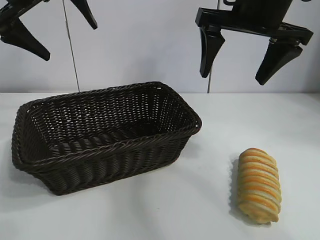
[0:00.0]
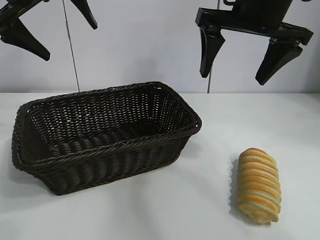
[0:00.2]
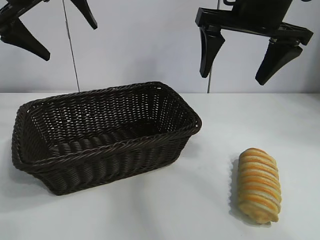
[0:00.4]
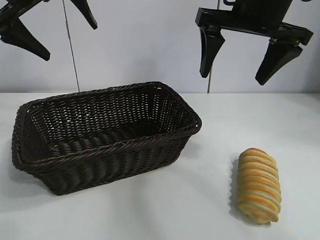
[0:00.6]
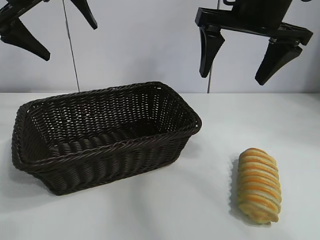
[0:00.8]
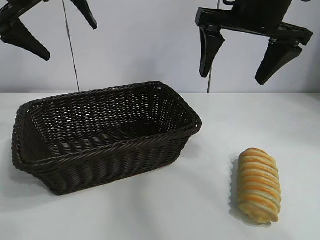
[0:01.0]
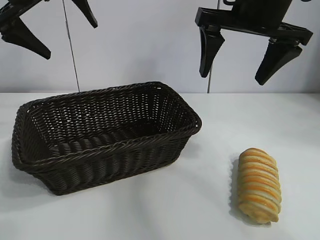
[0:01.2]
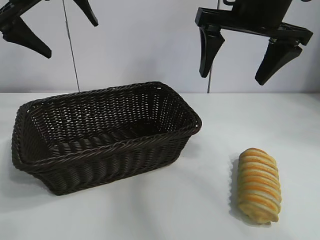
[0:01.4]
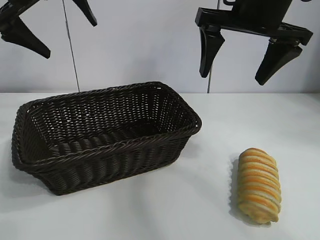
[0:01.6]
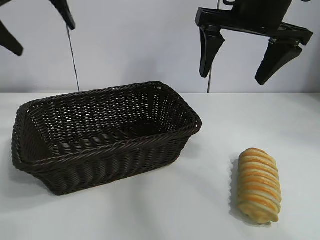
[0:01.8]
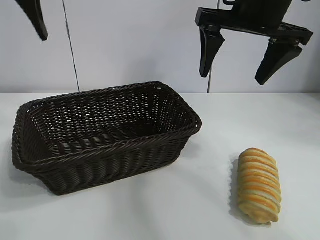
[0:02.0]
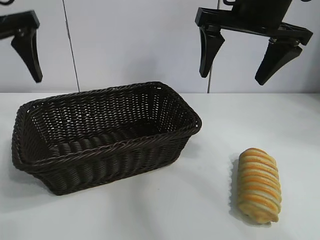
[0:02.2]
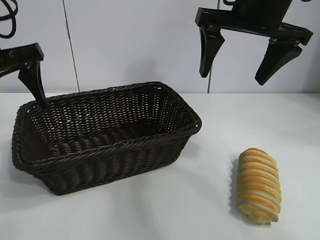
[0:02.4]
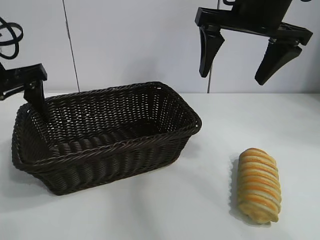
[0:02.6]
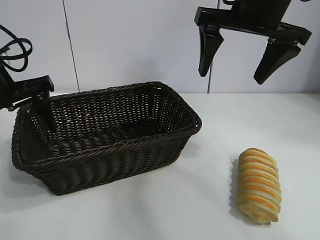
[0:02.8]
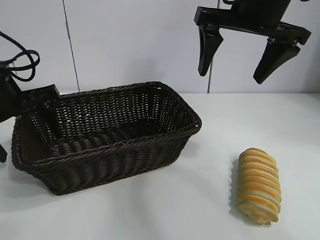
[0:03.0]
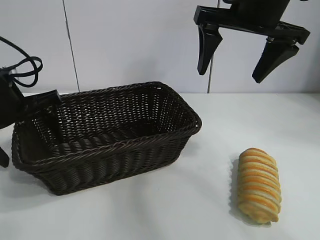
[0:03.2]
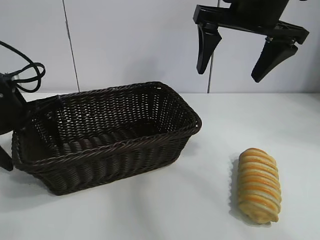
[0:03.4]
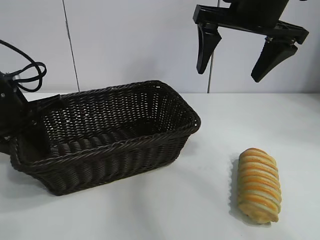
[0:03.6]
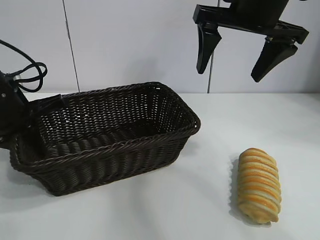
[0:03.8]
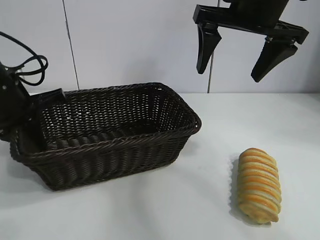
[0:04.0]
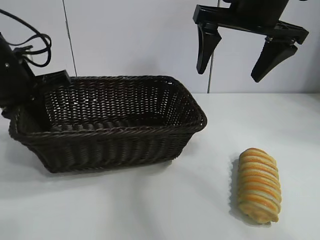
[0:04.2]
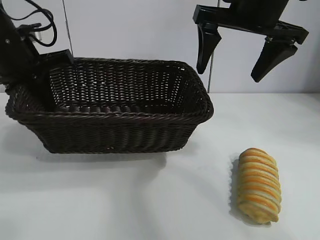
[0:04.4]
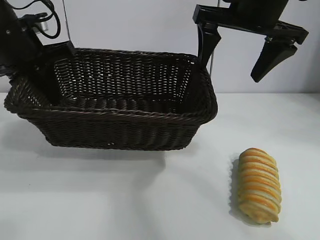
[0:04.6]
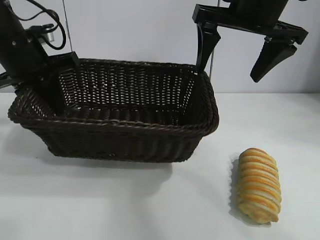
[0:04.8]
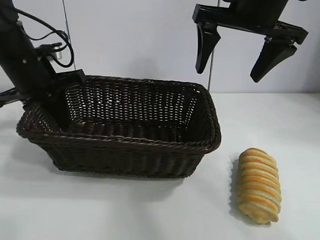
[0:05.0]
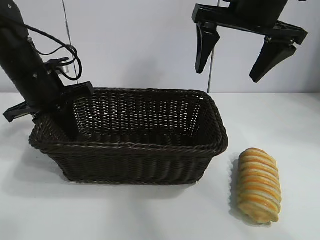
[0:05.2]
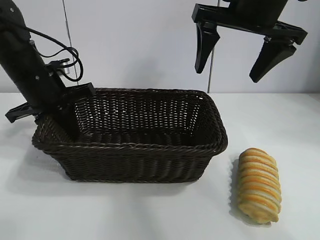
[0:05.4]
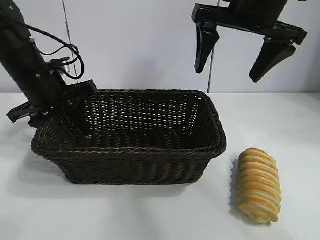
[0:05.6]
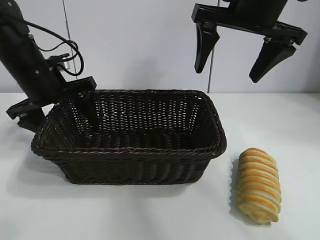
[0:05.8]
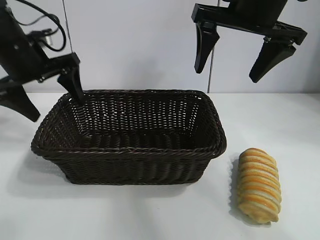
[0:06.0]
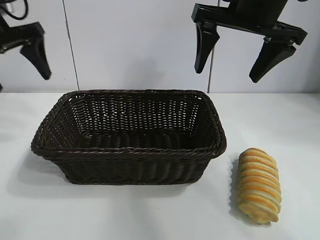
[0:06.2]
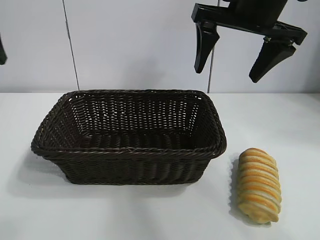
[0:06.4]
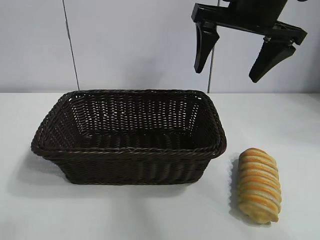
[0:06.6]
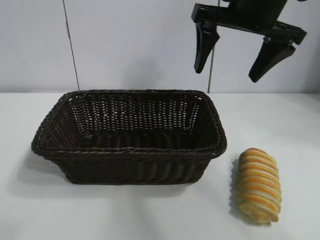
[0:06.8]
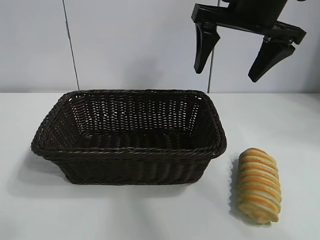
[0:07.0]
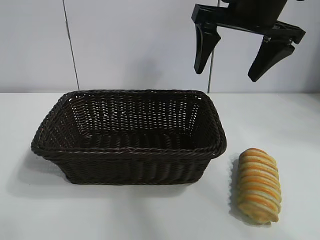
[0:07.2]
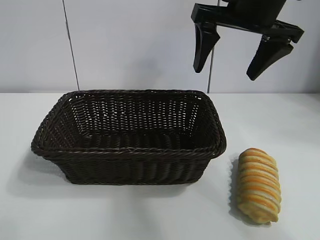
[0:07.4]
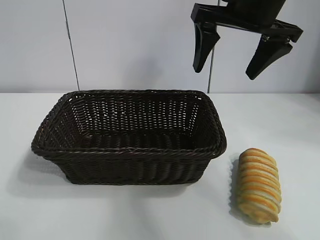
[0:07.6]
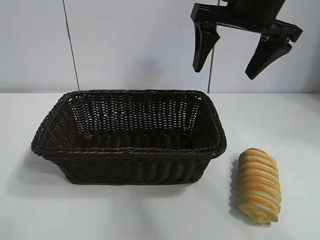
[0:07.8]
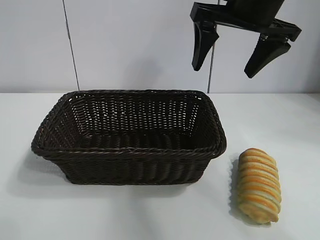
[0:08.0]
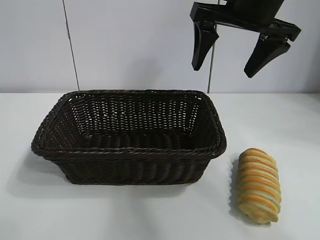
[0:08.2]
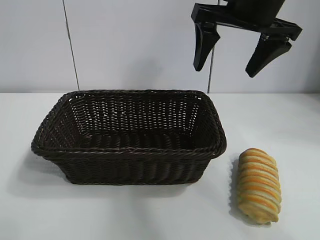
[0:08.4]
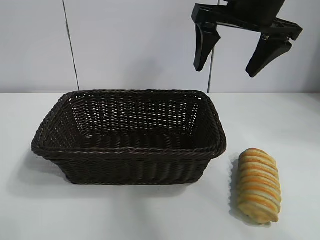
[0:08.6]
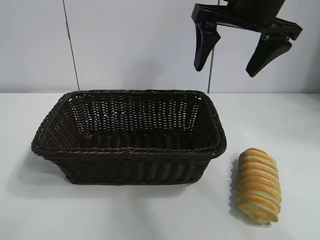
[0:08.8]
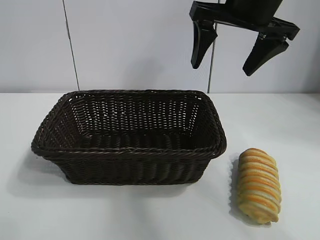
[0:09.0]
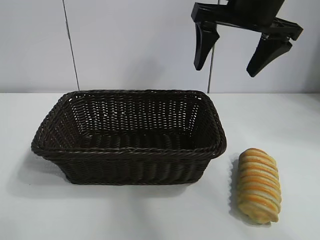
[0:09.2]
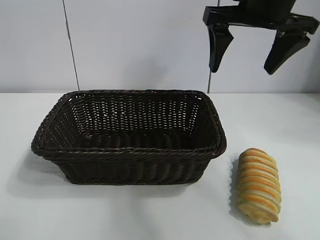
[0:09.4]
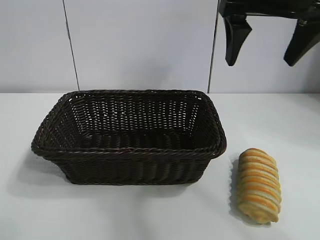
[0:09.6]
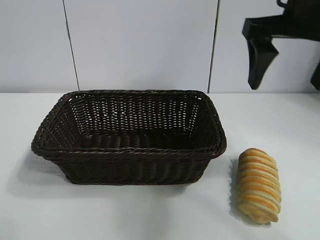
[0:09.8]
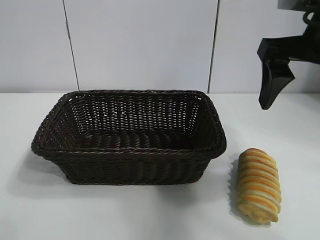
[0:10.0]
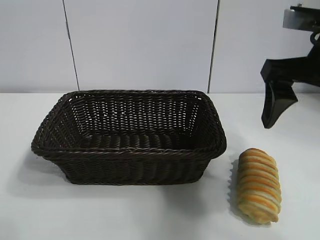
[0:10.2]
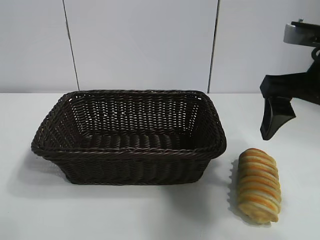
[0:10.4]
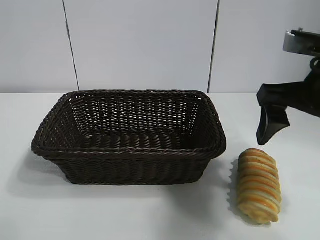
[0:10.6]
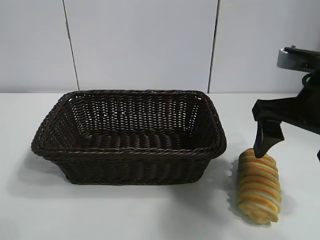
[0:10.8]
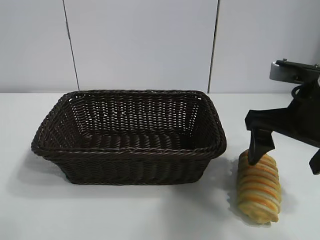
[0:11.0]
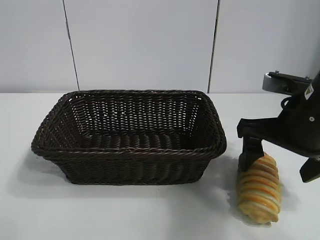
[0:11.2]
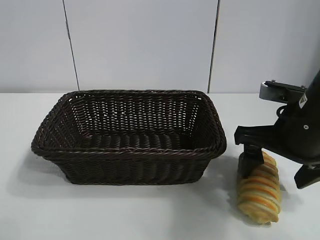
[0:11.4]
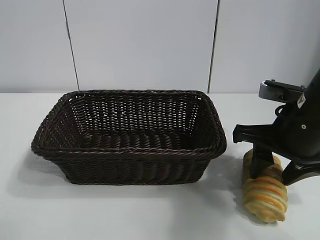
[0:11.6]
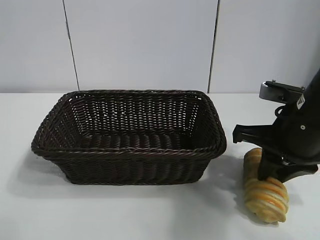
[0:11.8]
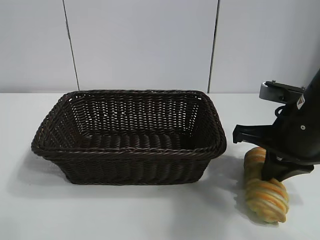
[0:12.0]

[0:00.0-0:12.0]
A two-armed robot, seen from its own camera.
Task of the whole recording: pick up the long bread and put it into the basket.
Step, 0:01.2 to 0:03.8: Grasp the basket with the left gripper.
Step, 0:04.0 to 0:05.6: Place the basket in the center of the table with the left gripper.
Step, 0:06.0 to 0:11.8: Grasp the long bread with right gripper.

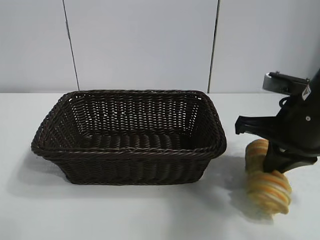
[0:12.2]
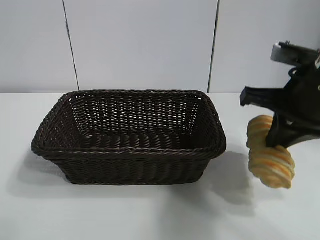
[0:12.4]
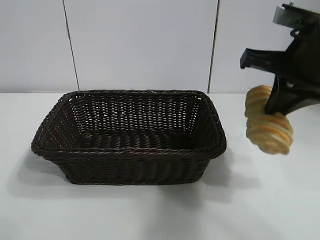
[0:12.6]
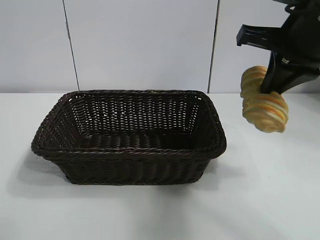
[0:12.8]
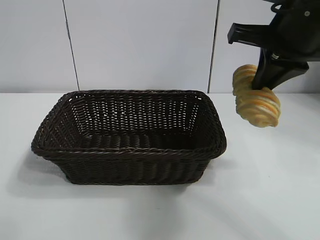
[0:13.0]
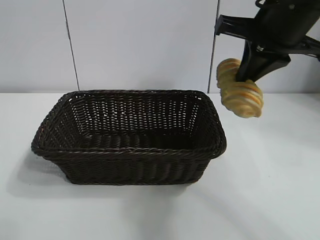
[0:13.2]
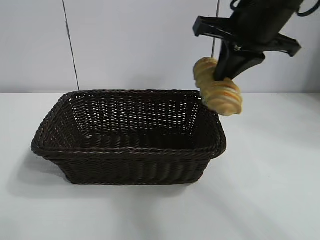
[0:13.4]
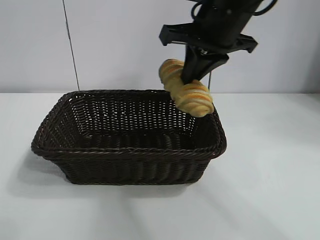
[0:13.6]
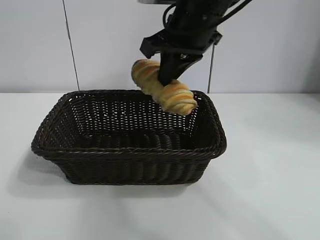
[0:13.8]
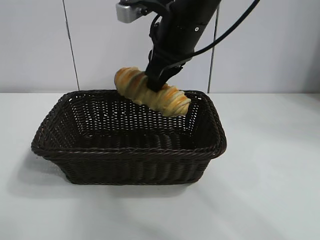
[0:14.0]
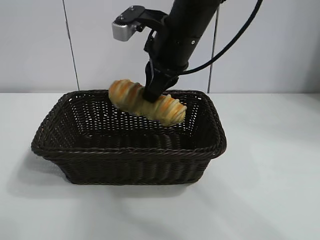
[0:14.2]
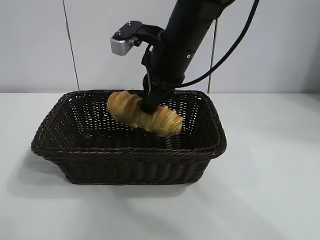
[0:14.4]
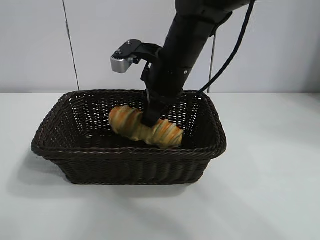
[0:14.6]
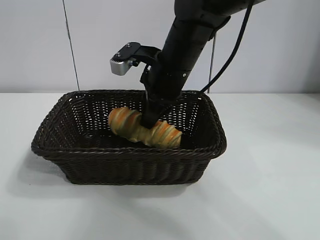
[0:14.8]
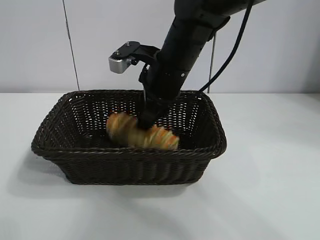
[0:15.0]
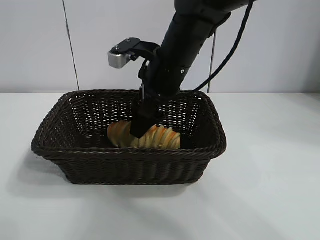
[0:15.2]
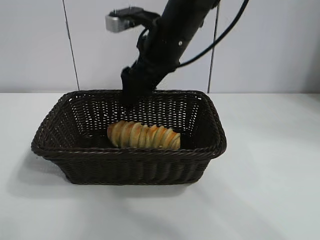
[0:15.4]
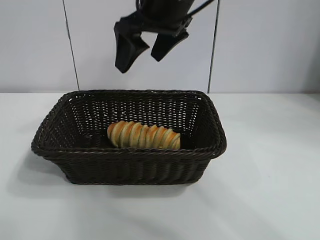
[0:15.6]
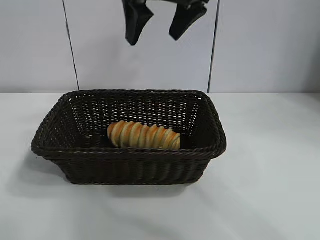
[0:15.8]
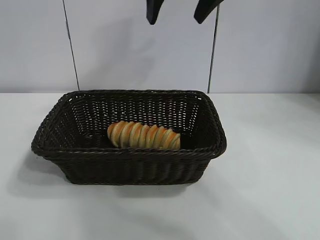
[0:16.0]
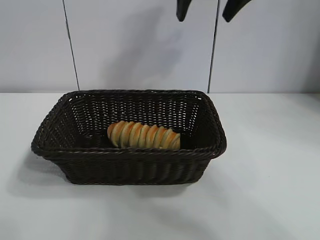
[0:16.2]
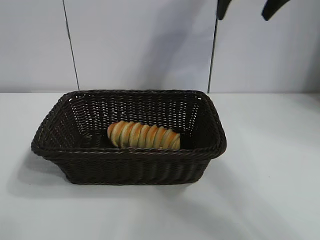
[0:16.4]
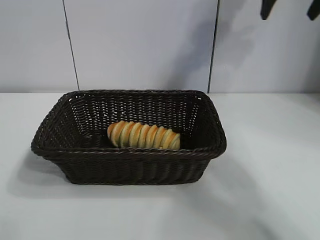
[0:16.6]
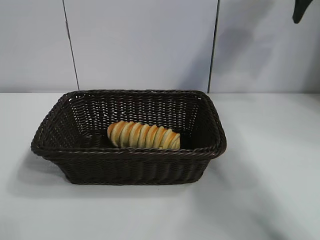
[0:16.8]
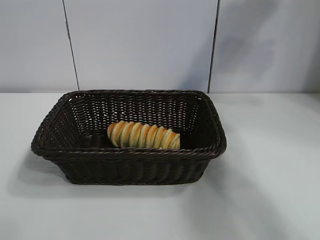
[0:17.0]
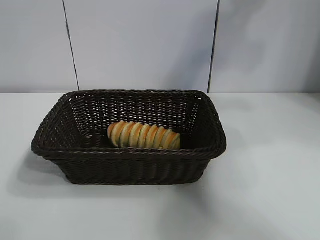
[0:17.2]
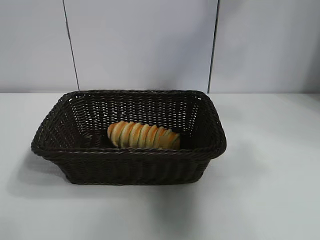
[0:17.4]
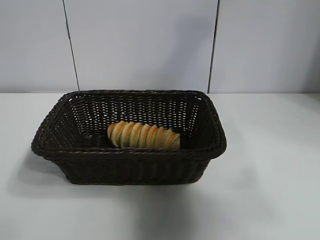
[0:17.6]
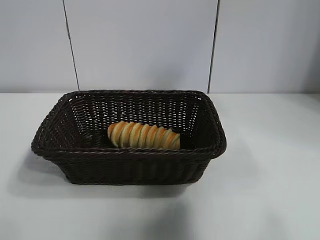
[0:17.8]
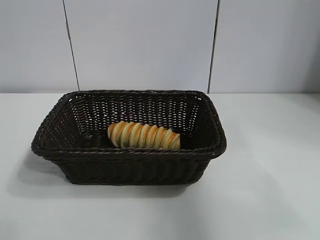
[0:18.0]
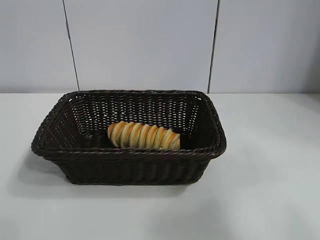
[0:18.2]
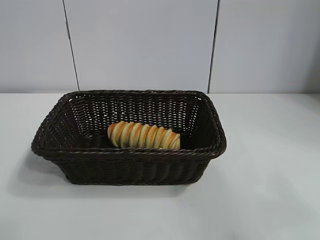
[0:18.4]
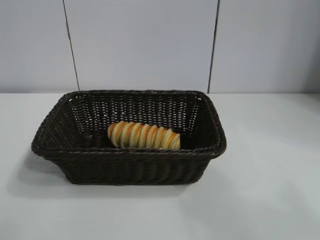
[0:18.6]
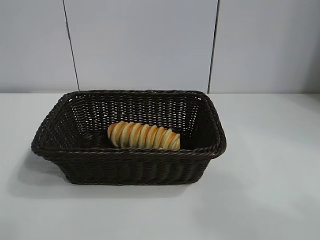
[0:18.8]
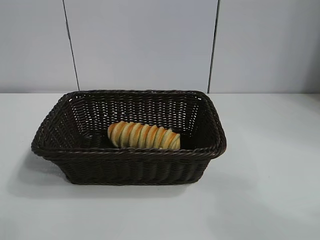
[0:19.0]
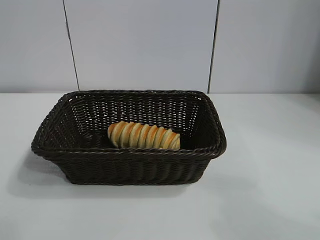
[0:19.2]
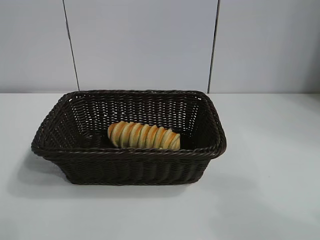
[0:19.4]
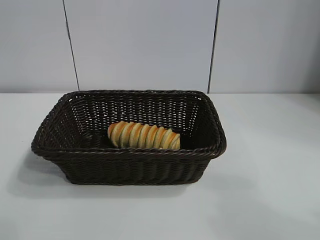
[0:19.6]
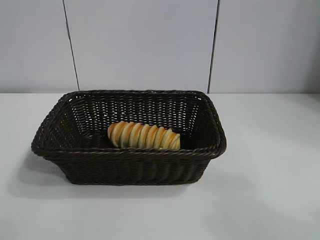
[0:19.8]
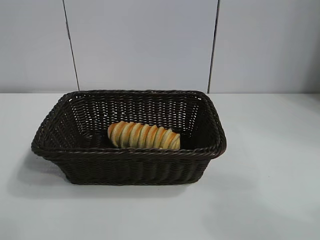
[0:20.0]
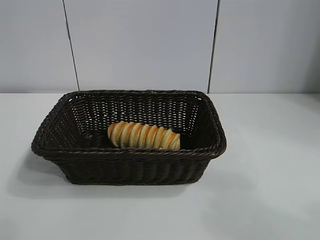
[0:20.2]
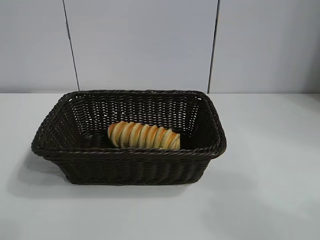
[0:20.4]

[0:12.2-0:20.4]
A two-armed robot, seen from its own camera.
Task of the whole recording: pick up the long bread and put it into the basket.
Step, 0:12.2 to 0:15.2: Place the long bread in the basket with right gripper.
